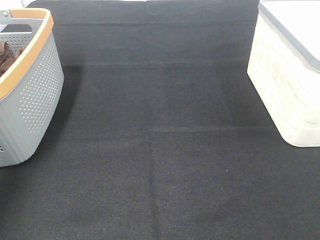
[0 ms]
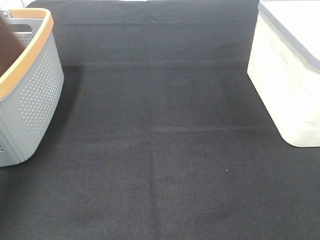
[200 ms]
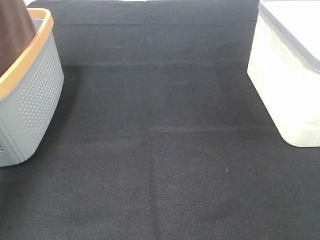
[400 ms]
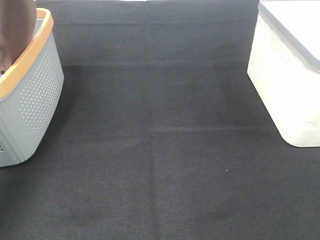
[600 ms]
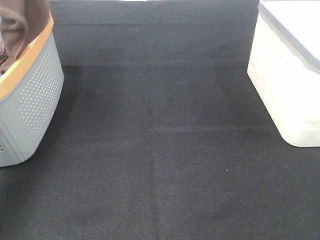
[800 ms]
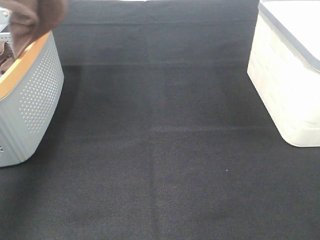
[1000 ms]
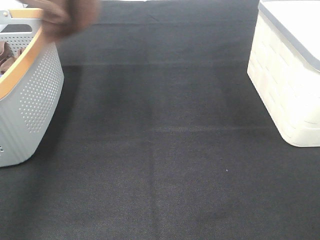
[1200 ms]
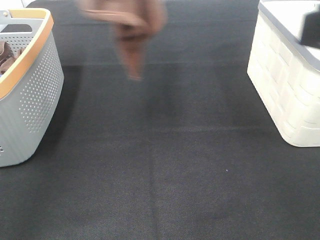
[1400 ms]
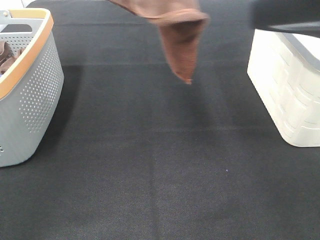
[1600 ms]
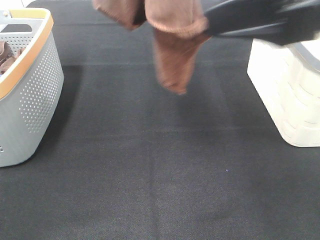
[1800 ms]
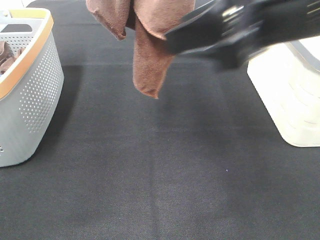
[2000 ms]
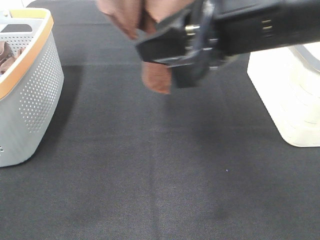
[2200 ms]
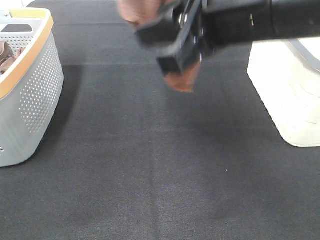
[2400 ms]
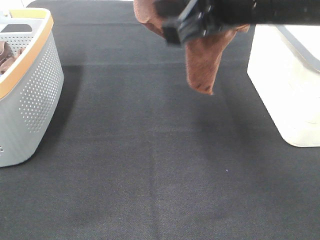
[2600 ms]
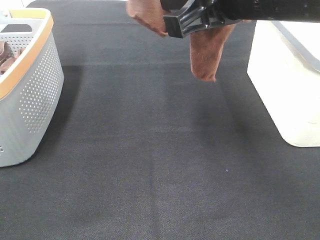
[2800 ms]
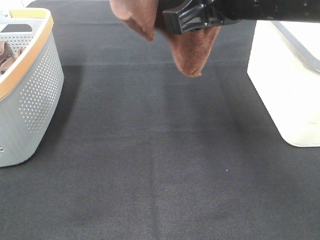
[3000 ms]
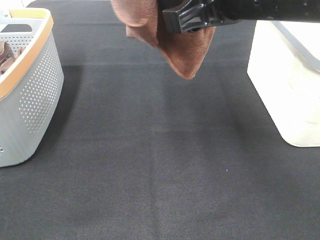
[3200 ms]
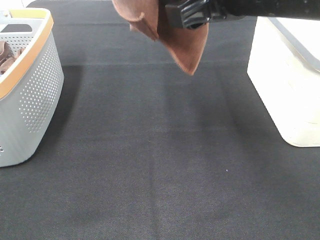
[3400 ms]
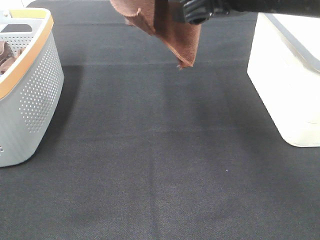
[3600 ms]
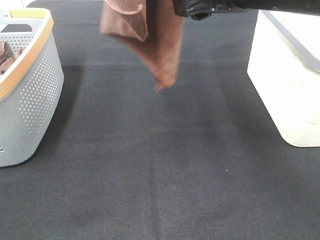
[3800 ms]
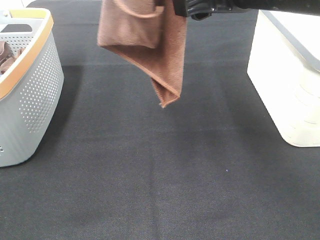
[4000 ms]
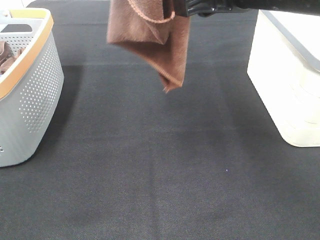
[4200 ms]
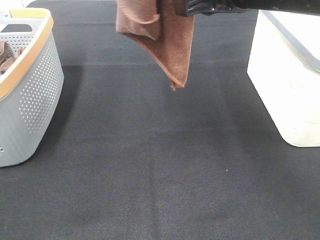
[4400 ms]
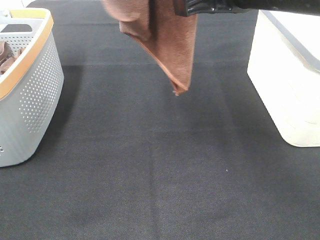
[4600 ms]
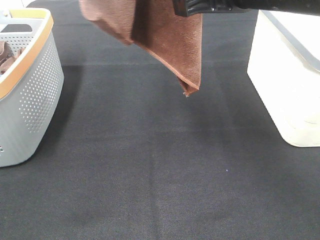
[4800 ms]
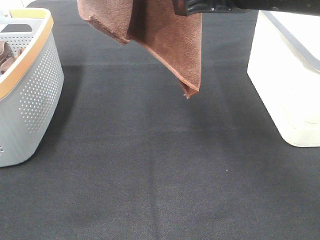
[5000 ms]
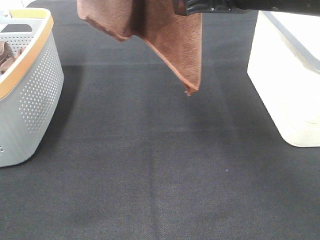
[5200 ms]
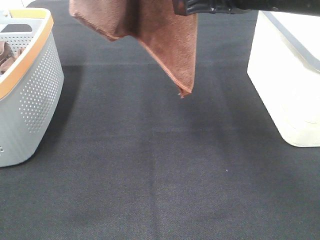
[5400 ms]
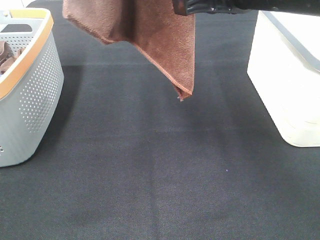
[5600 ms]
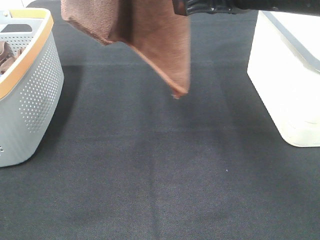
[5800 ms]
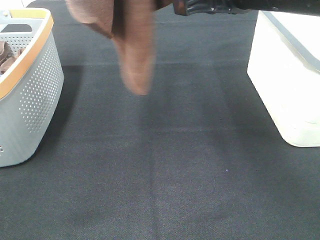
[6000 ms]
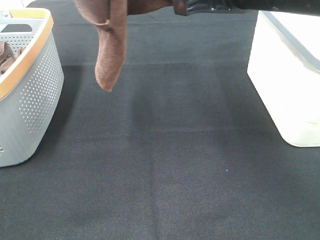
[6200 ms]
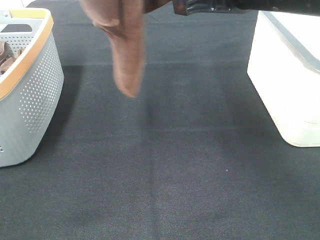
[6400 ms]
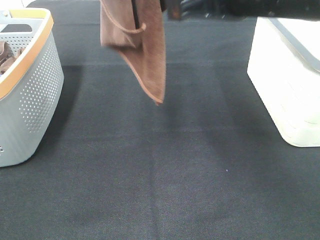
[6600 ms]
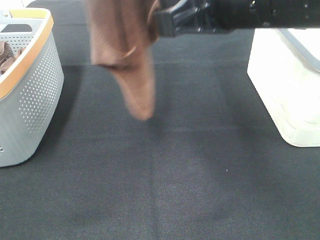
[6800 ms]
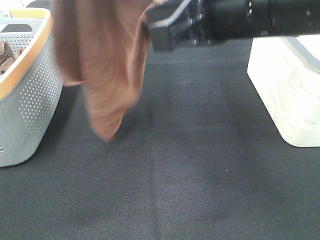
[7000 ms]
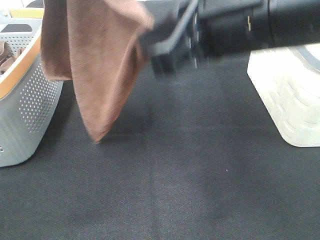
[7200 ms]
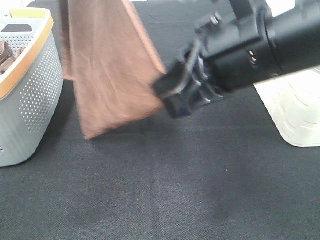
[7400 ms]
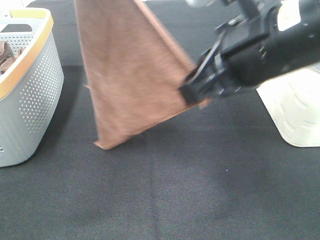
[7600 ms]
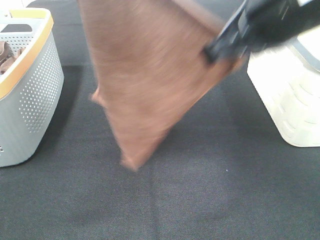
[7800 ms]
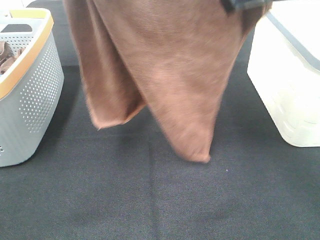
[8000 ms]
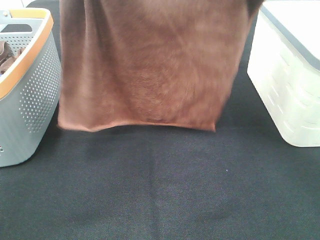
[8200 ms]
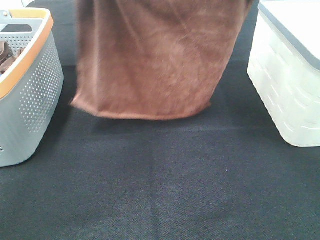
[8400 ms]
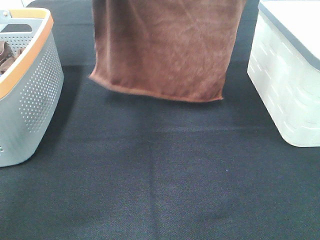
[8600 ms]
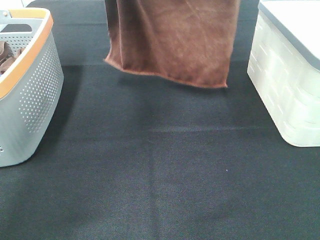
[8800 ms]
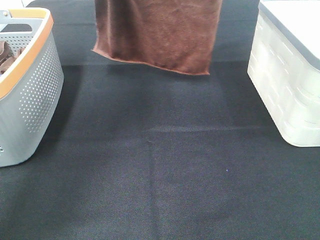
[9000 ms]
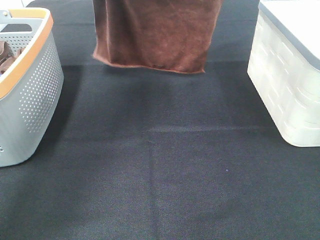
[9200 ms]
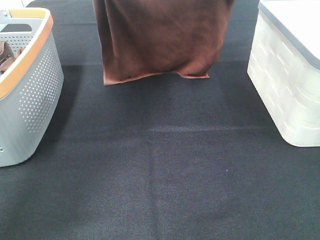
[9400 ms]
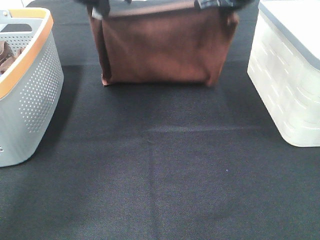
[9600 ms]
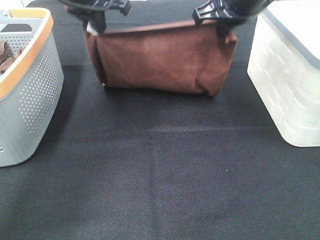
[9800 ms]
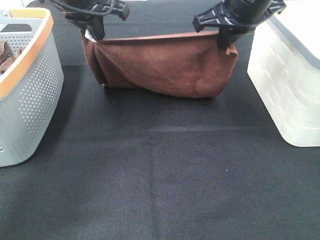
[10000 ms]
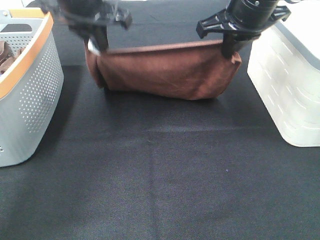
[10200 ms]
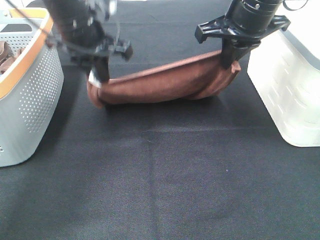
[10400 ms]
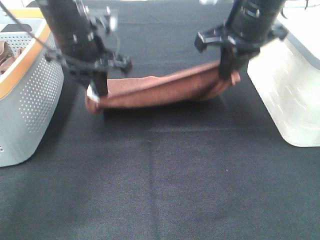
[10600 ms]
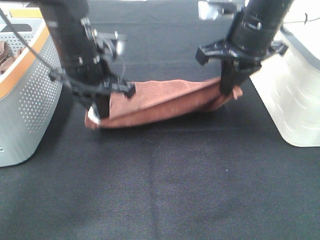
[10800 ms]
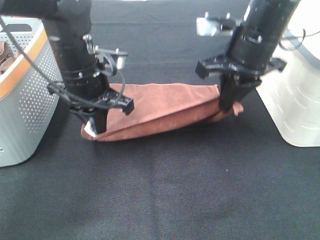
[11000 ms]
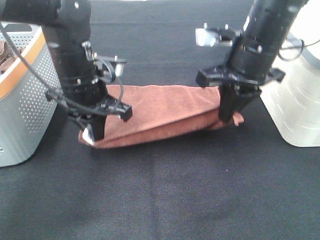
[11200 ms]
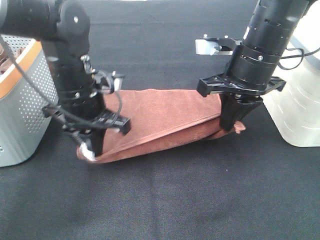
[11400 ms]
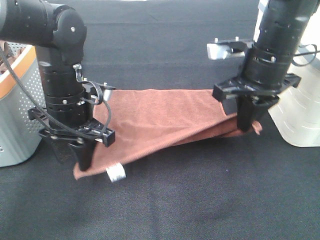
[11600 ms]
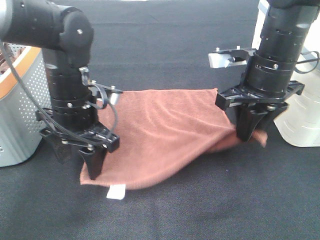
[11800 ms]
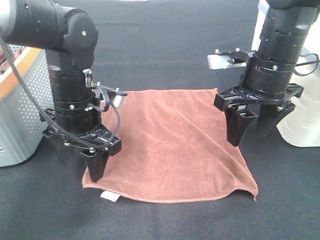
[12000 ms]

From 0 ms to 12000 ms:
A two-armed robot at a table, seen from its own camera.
Task of the whole recording: Remove the towel and place it.
Step, from 0 ms to 4400 ms: Right hand: grab a corner of the brown towel and straighten it.
Step, from 4600 ms to 7000 ms: Left hand: spread the brown towel flat on the table.
Step, from 4600 ms to 7200 ms: Right hand: spread the brown towel flat on the table.
From 0 ms to 1600 ms: The right gripper heads forward, to the left and upward, covering approximately 20 cm. The left gripper shifts some 20 cm to the right and upward.
From 1600 ms to 3000 ms: The right gripper shifts approximately 10 cm to the left and forward. The left gripper shifts by about 5 cm.
From 3000 ms to 4400 ms: There are only small adjustments of the grippers.
From 4400 ms to 6000 ms: The right gripper closes, then reopens.
From 6000 ms to 7600 ms: The left gripper heads downward, covering roughly 5 cm. Meanwhile the right gripper closes.
From 7600 ms to 9000 ms: The right gripper heads forward, covering some 20 cm; the left gripper travels forward and downward by approximately 20 cm.
From 9000 ms to 10400 ms: The right gripper moves downward and backward, some 10 cm. Meanwhile the left gripper heads downward and backward, covering roughly 15 cm.
From 10400 ms to 12000 ms: Both grippers travel together downward and backward, approximately 10 cm. The right gripper opens; the left gripper opens up.

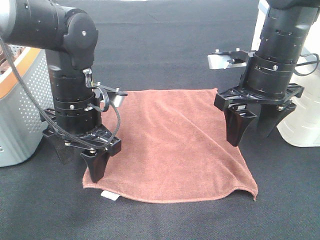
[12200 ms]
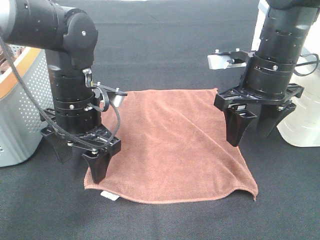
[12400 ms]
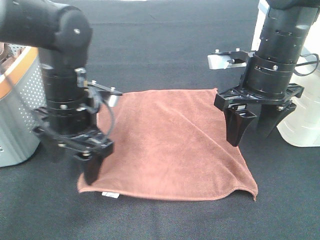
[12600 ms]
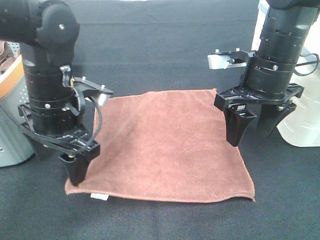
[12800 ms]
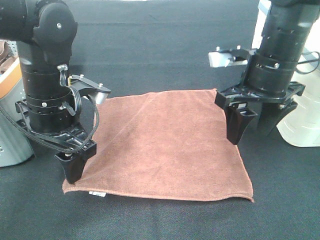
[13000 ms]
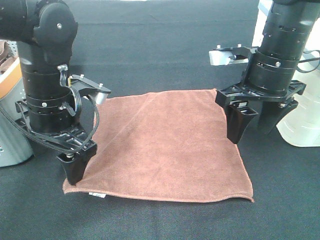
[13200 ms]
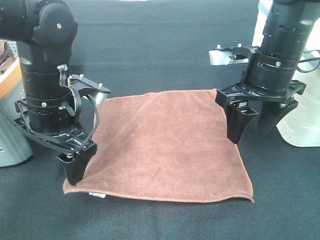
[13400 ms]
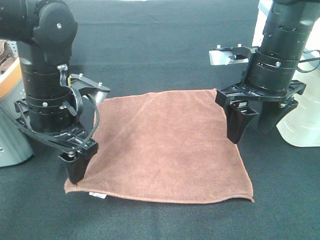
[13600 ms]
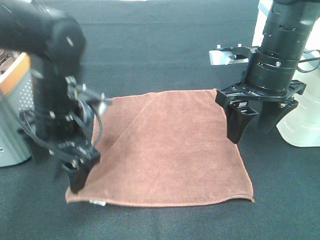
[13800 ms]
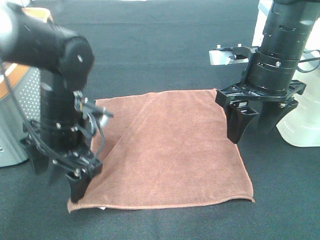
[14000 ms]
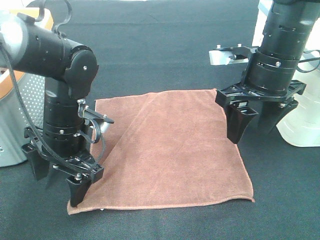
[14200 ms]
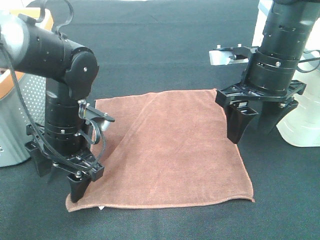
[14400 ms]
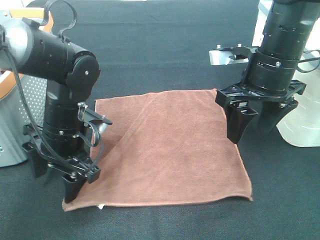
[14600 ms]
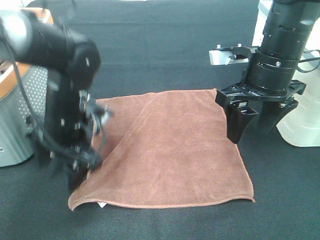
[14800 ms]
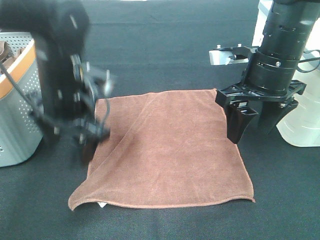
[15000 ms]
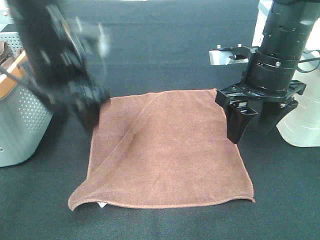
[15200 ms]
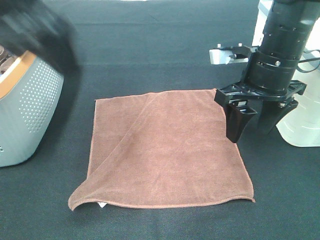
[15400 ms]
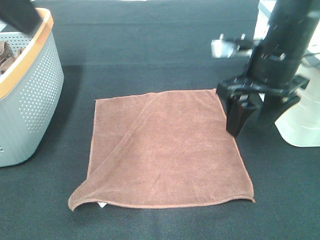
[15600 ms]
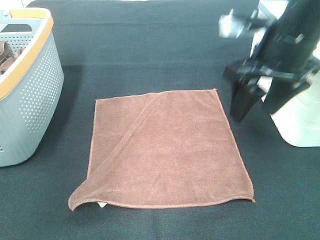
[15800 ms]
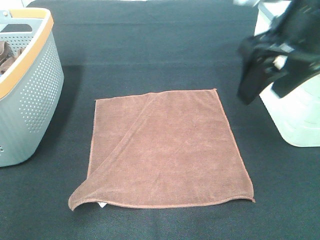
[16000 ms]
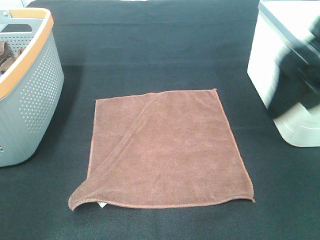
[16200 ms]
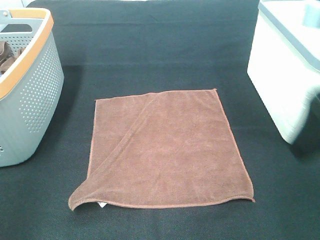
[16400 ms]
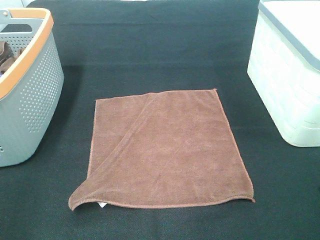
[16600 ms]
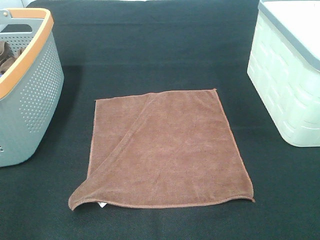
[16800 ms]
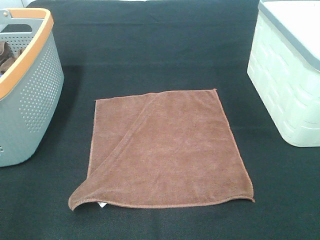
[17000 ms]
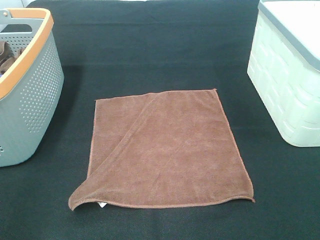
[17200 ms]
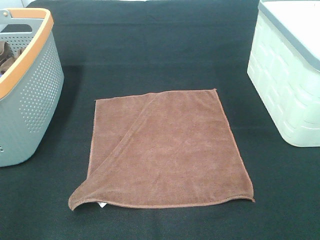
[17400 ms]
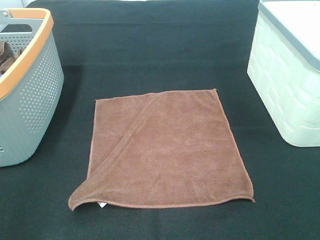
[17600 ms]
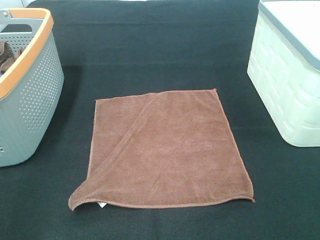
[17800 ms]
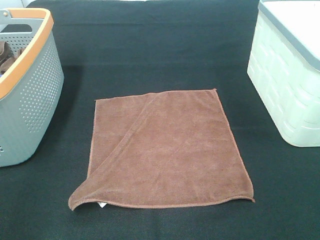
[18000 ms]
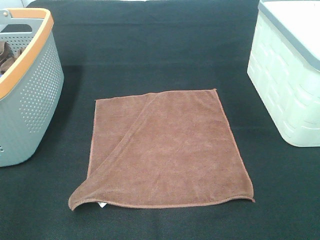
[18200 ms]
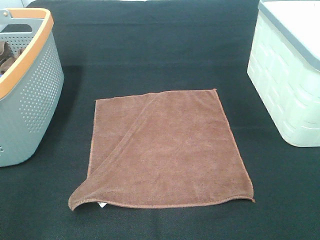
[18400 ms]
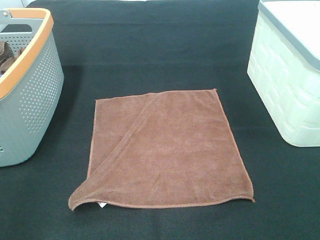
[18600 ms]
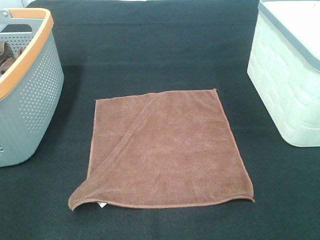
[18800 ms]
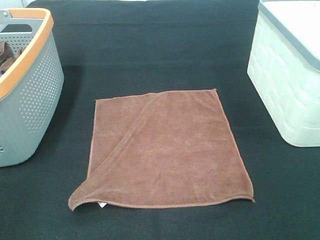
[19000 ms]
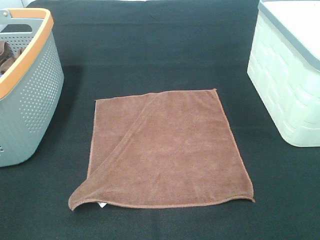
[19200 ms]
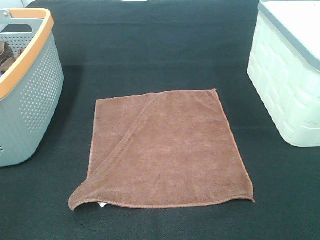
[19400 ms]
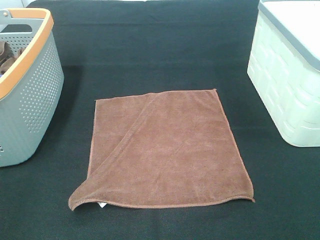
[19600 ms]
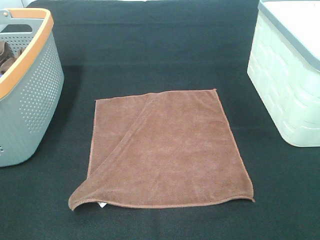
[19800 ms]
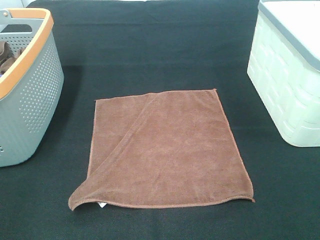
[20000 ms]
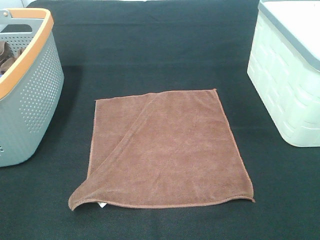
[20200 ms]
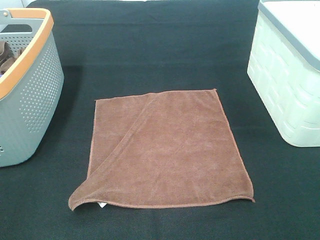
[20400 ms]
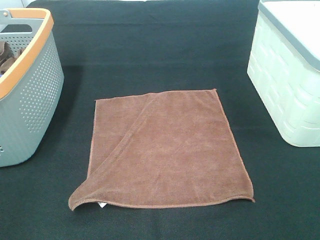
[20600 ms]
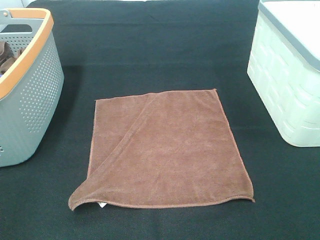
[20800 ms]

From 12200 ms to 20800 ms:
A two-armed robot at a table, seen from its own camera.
Task of the whole recording: Remove the towel and place it.
From 13600 ms to 15000 ms: The left gripper moves about 5 cm downward and comes back.
From 15000 ms to 16600 ms: The left gripper travels backward and to the left by approximately 35 cm. The right gripper shifts roughly 20 cm backward.

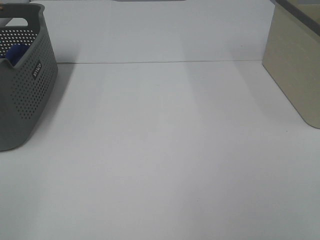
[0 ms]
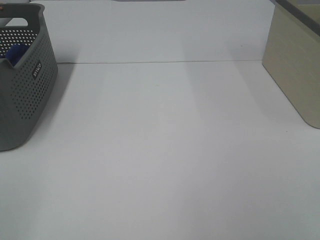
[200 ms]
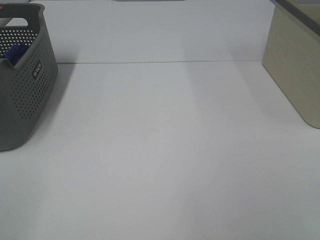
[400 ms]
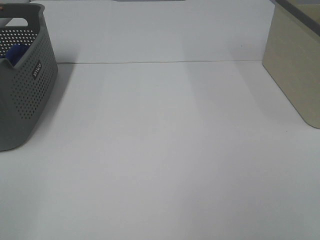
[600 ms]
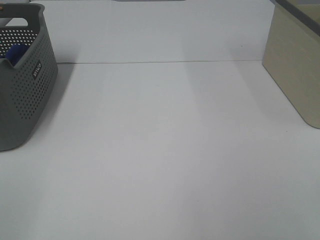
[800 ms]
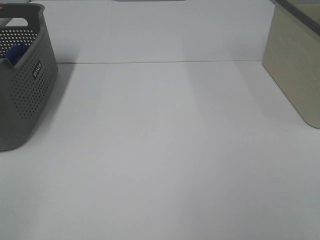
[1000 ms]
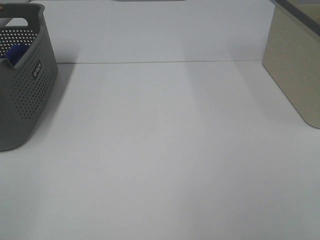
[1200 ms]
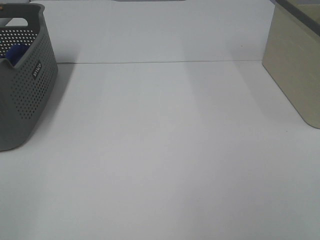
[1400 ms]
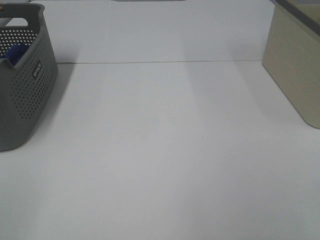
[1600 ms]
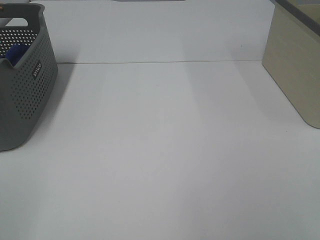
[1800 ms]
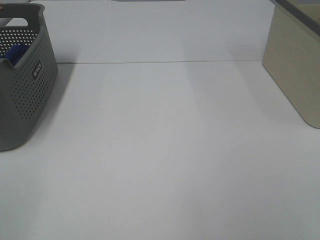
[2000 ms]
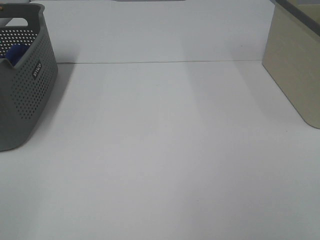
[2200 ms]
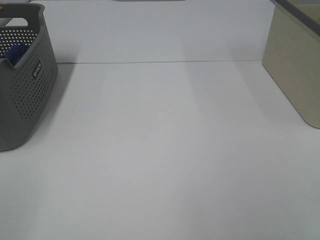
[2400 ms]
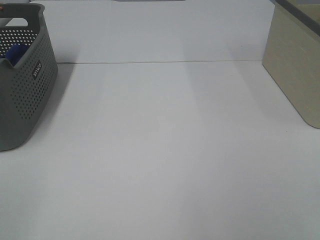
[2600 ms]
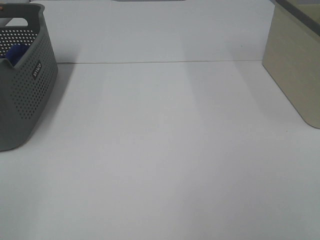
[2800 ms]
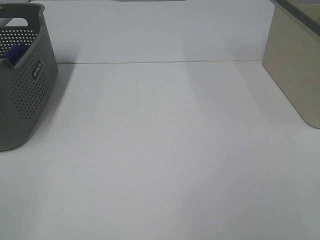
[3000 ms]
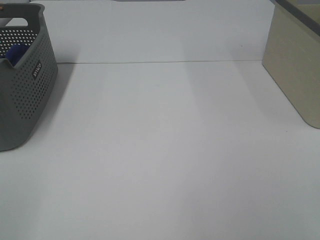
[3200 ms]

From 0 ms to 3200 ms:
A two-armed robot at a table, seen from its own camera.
Task of the whole recording: Remove the towel and place it.
From 0 ms to 3200 ms: Both grippers stay about where they are.
